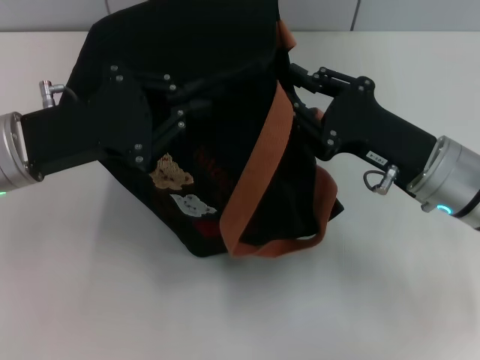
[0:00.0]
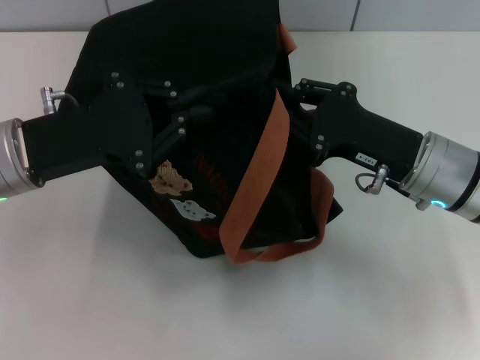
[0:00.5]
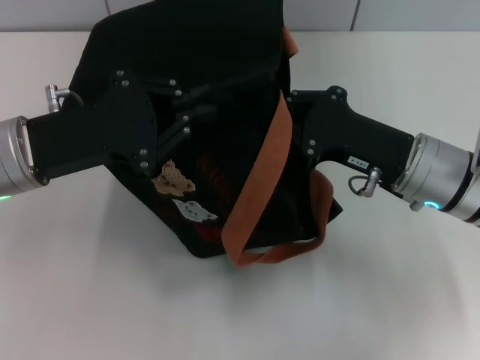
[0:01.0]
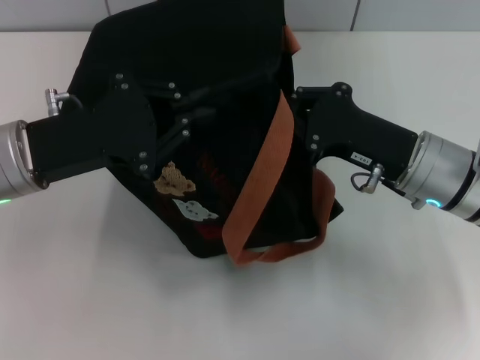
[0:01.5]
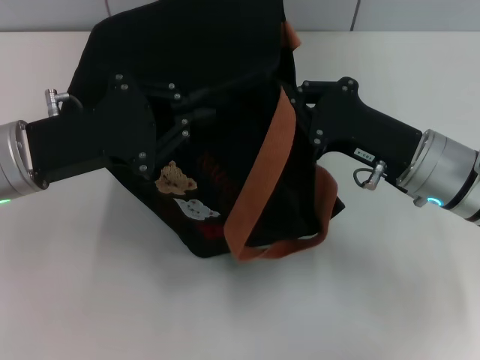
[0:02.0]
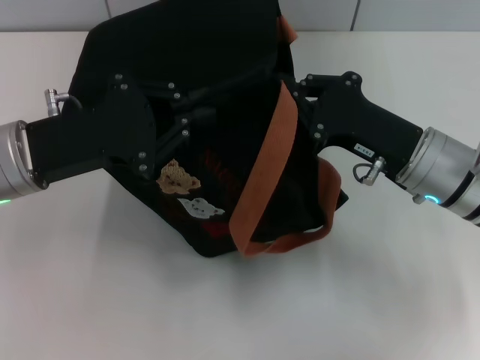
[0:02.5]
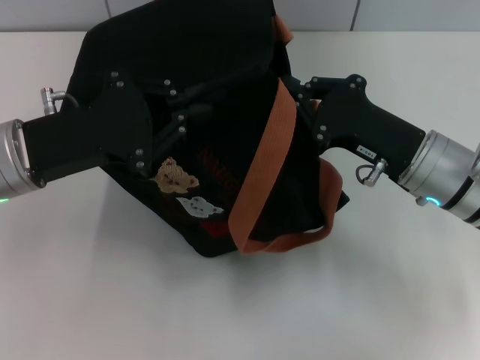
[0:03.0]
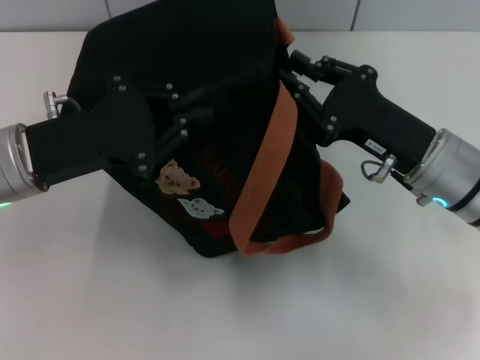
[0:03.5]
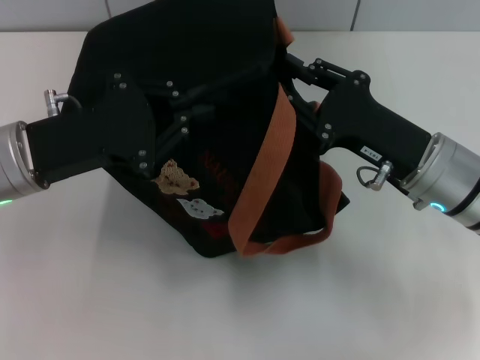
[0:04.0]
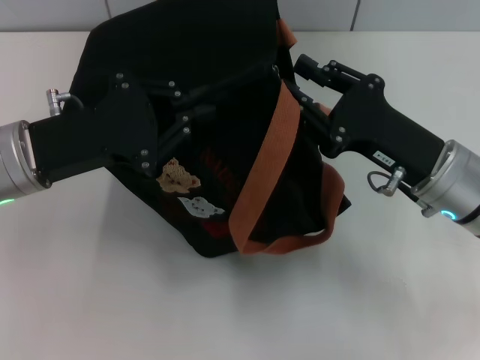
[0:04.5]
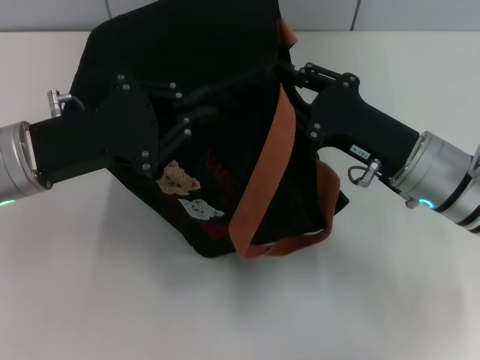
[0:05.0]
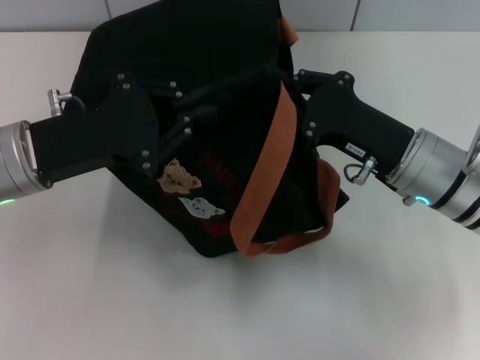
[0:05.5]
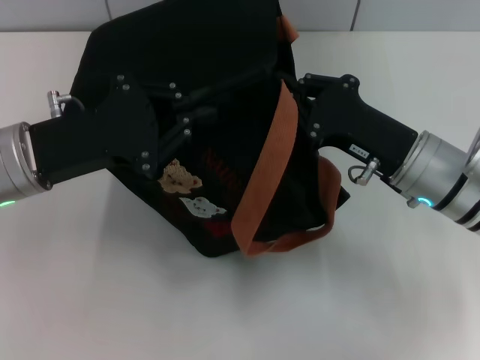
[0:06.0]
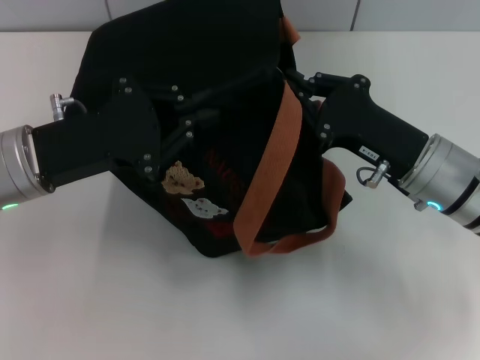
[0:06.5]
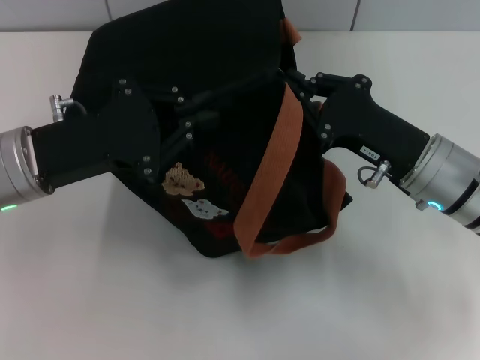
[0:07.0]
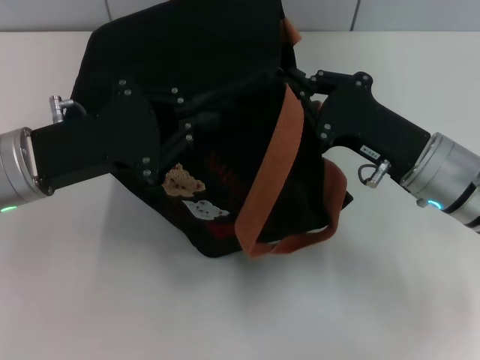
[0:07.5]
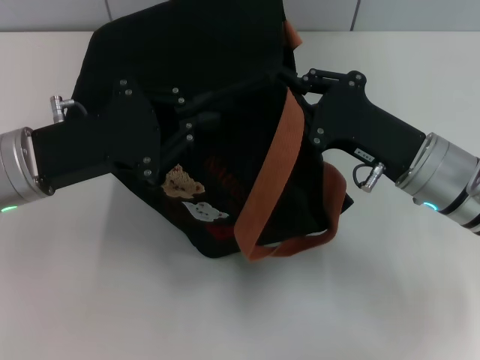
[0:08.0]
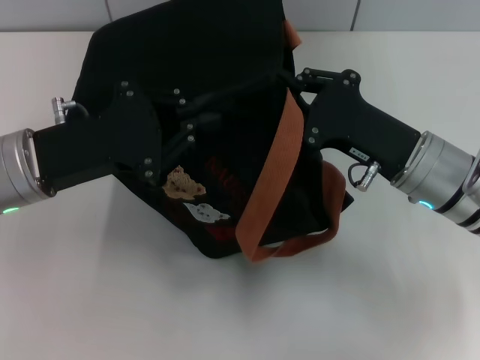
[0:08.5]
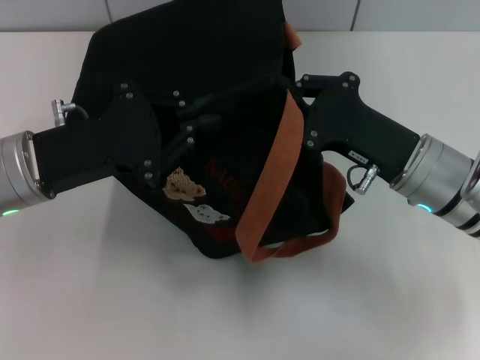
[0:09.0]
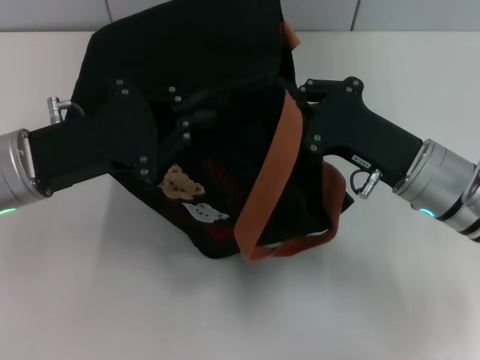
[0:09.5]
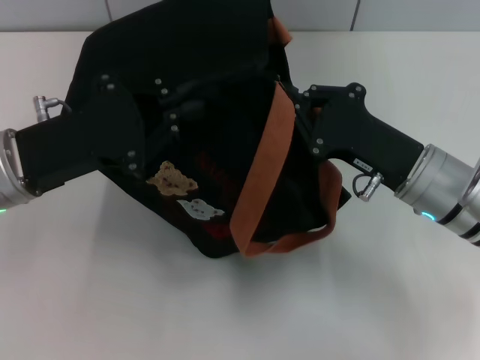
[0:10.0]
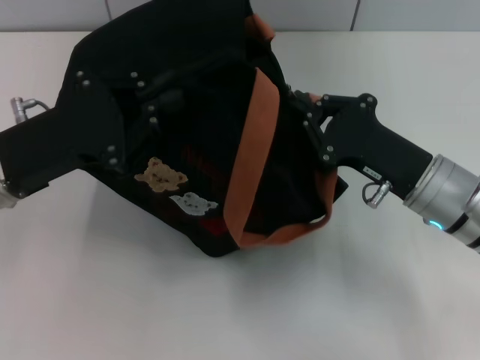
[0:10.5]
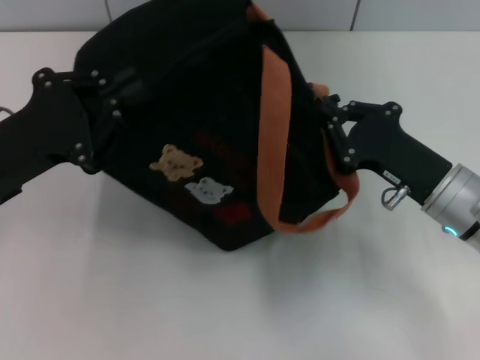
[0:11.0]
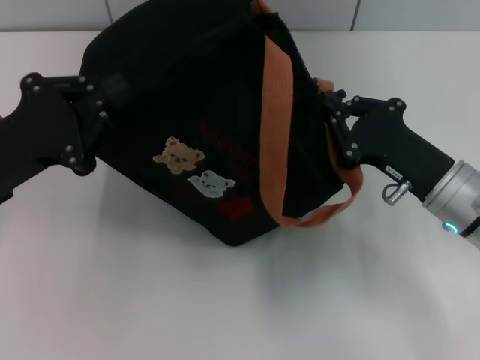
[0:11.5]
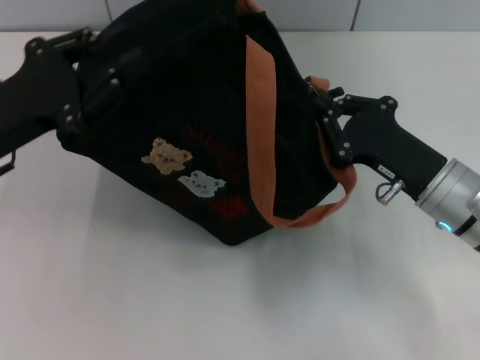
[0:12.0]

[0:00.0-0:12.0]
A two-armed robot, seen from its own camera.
0:00.0 to 0:02.0: The right gripper closes its fingers.
0:02.0 to 0:04.0: The right gripper opens.
0:04.0 to 0:06.0: The right gripper closes.
0:06.0 to 0:08.0: There are only small adjustments of the grippers.
0:08.0 to 0:10.0: Neither gripper changes place.

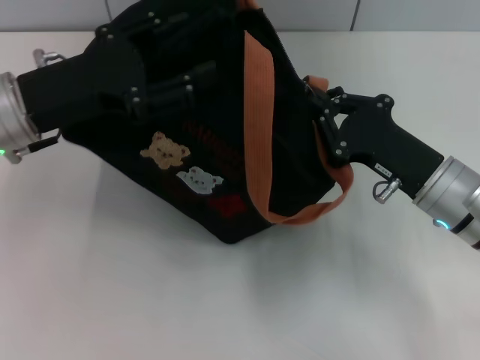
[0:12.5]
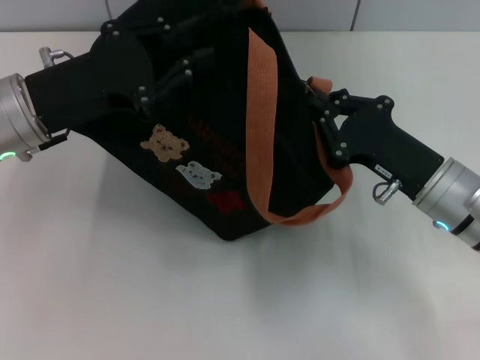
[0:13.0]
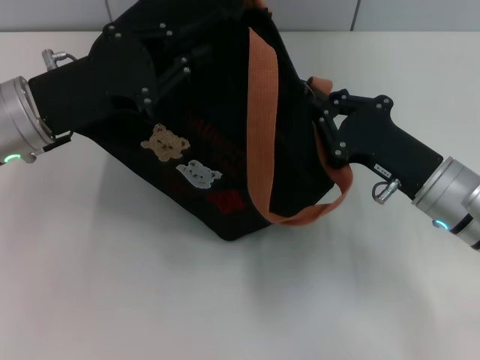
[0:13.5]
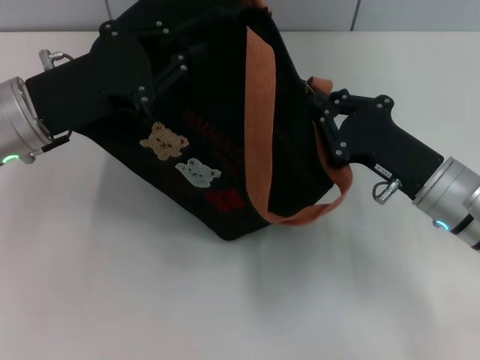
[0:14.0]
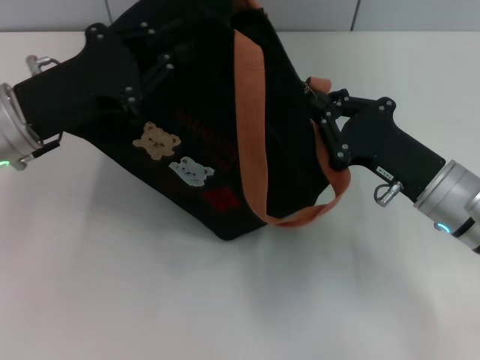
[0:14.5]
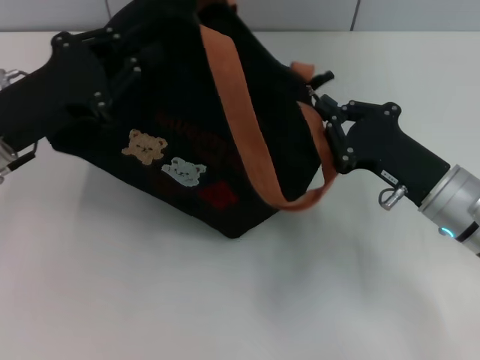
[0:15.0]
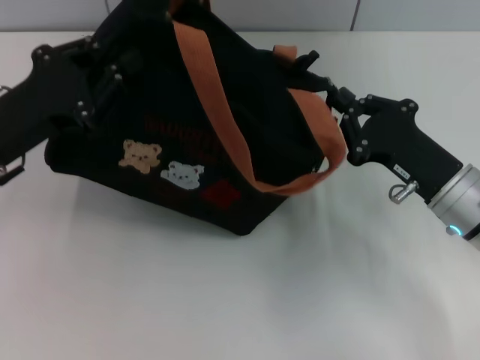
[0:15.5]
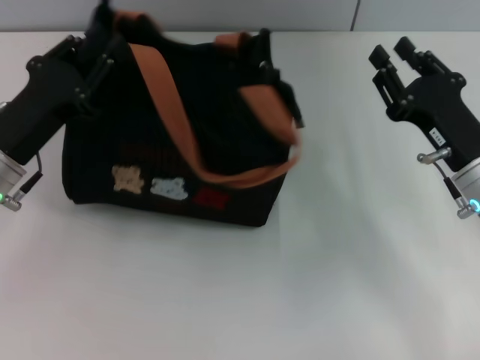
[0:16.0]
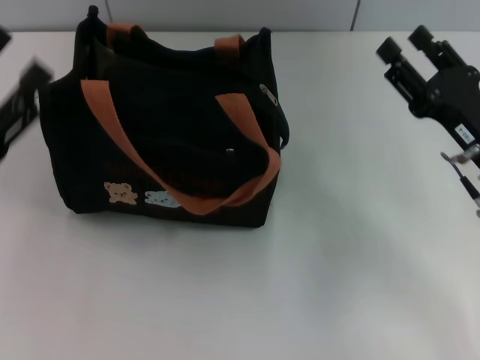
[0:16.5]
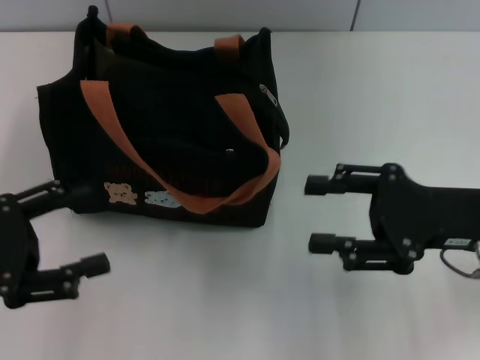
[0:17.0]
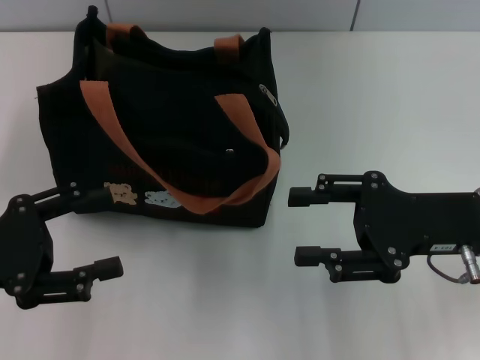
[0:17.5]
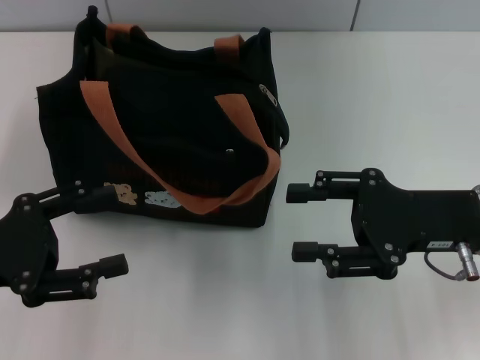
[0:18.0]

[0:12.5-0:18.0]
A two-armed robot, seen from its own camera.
Step, 0:12.5 to 0:15.5: Pull open the zipper with your right hand.
0:12.5 to 0:14.5: There are only small adjustments of the grippers.
0:14.5 to 0:16.0: The right gripper opens up. The left gripper shifts roughly 5 cm downward.
0:16.0 to 0:18.0: The left gripper is displaced backward and to the left by roughly 10 cm, and opens its fingers. The right gripper changes place by approximately 5 cm, and opens its fingers.
